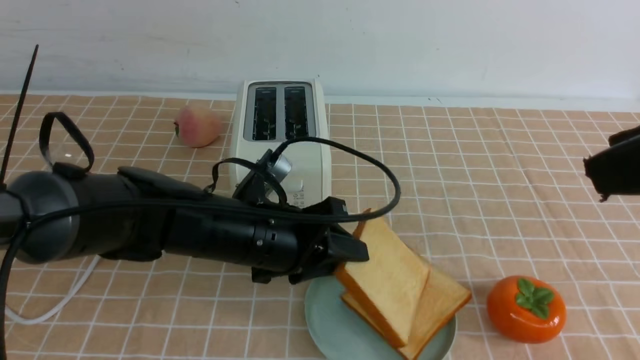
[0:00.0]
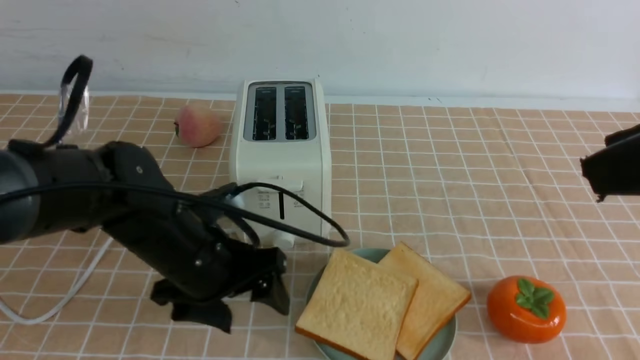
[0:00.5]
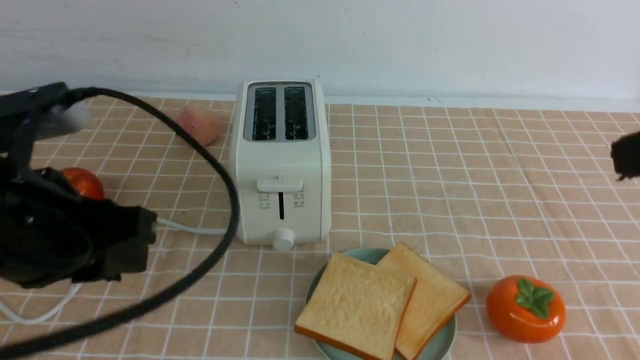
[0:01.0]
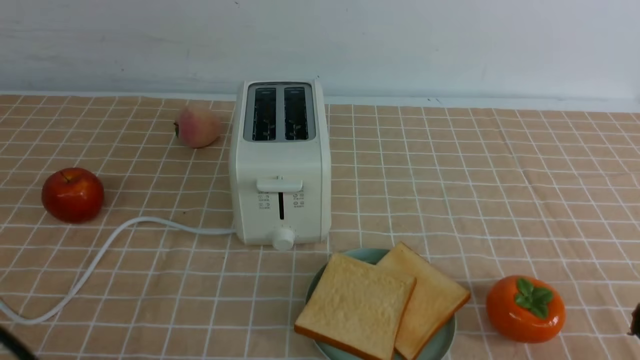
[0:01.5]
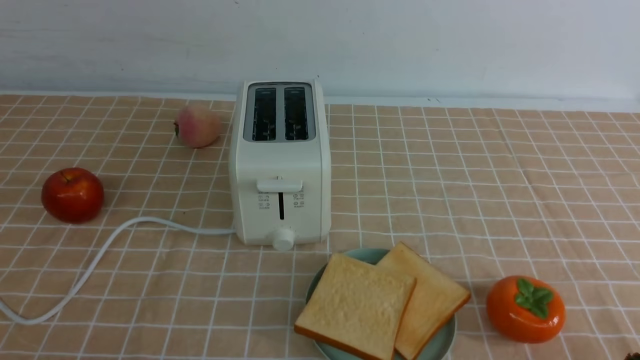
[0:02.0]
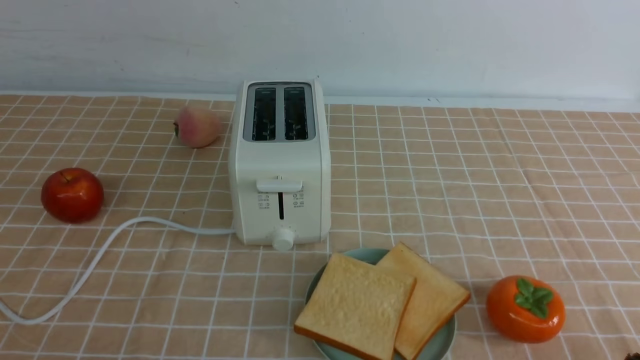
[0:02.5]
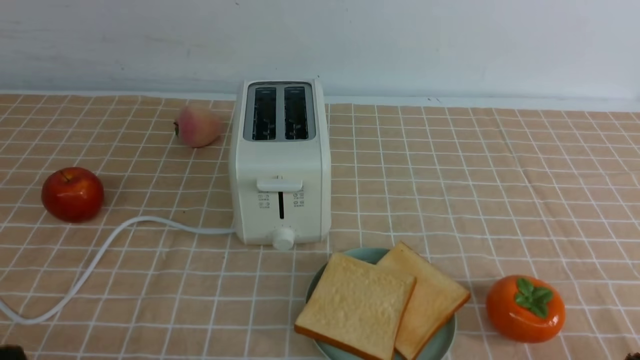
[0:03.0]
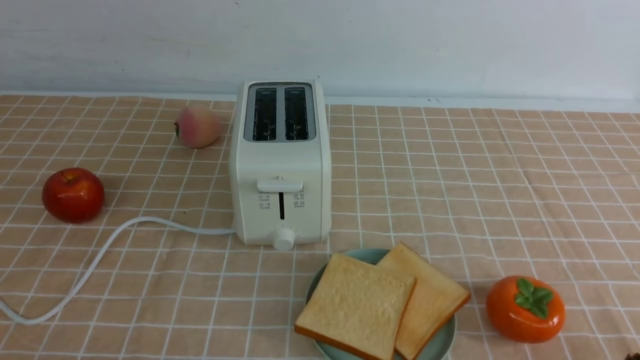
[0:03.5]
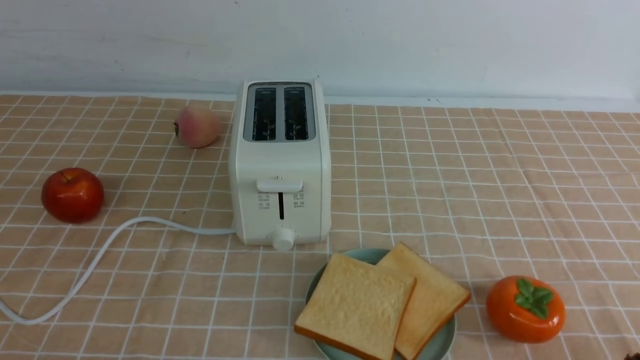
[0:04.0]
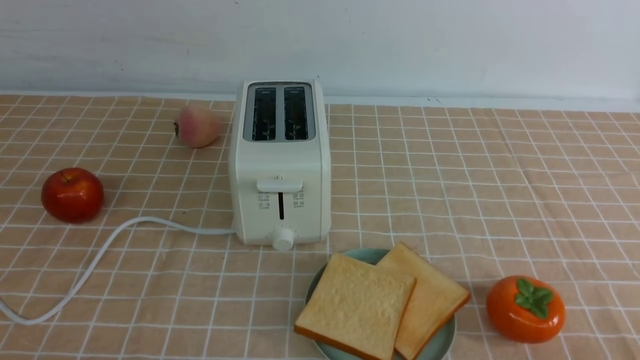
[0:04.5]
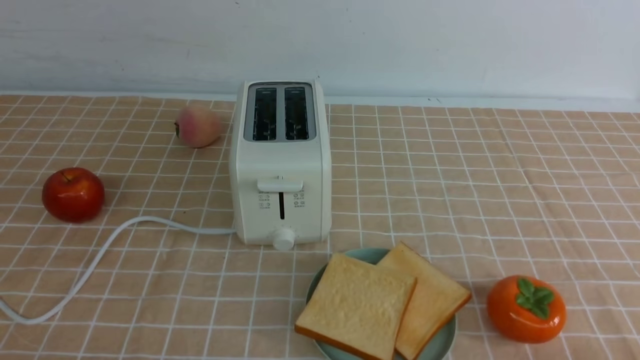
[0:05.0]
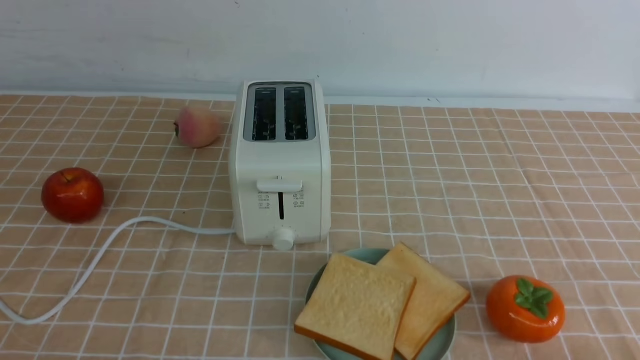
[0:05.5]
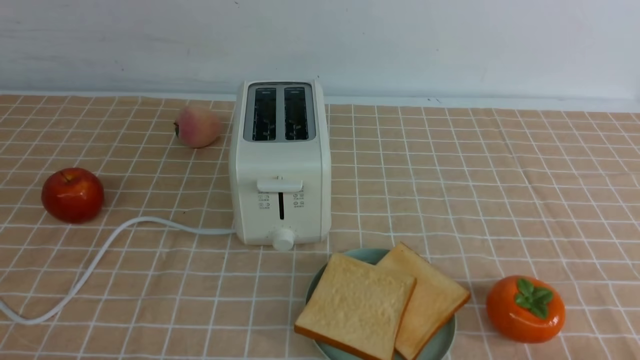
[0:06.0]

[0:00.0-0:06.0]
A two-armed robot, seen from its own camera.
Task of the whole recording: take toasted bread from bread machine on light coffee tablecloth place on plate.
0.0 to 2.0 s: The right gripper goes about 25 cm downward, and closes. The left gripper is displaced backward and to the left by roughly 30 cm, and closes its fingers.

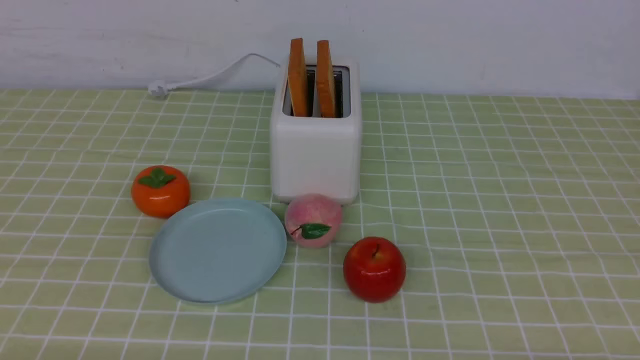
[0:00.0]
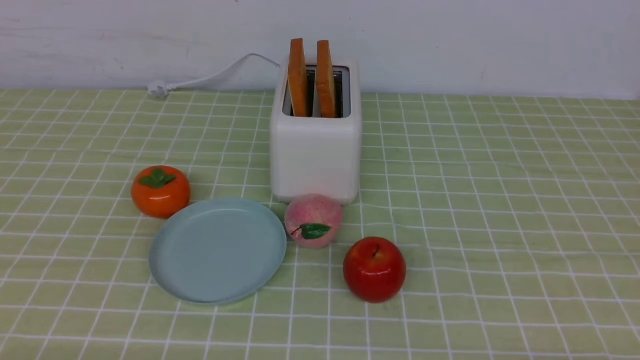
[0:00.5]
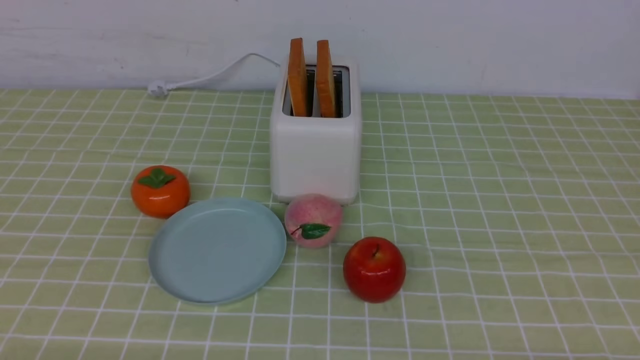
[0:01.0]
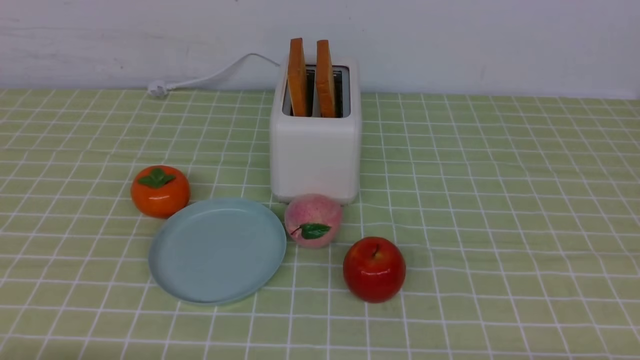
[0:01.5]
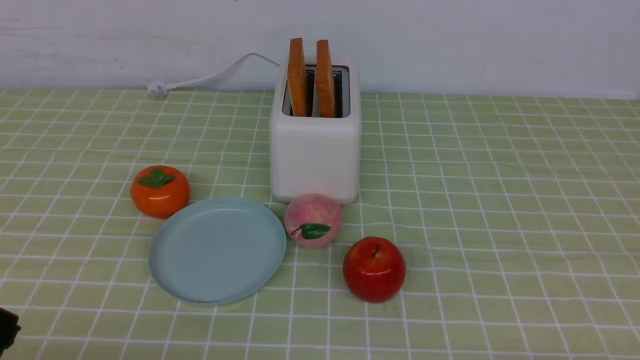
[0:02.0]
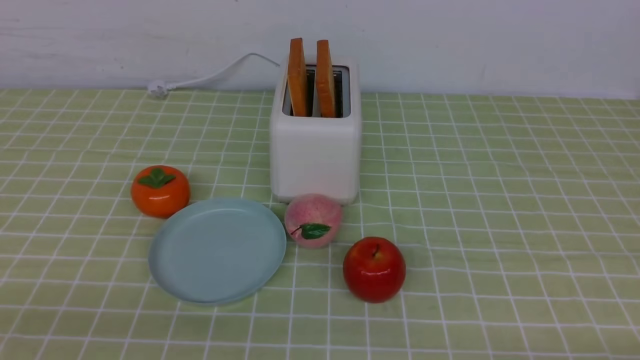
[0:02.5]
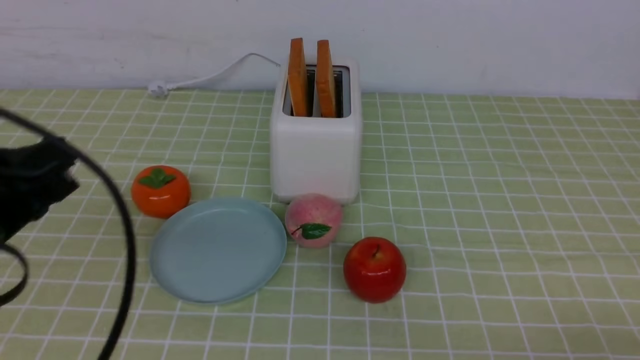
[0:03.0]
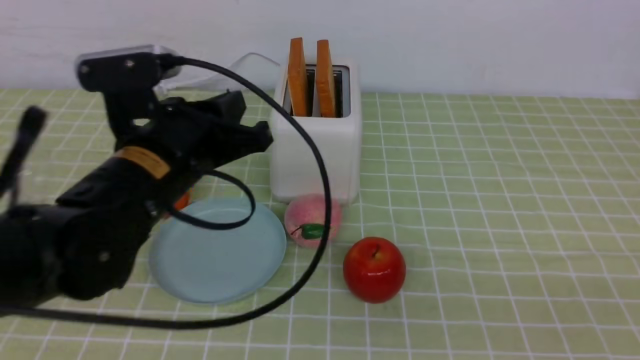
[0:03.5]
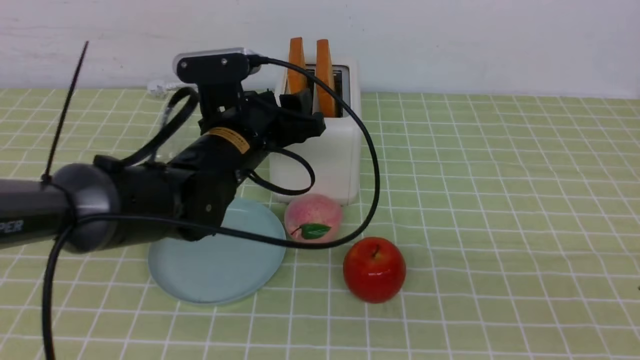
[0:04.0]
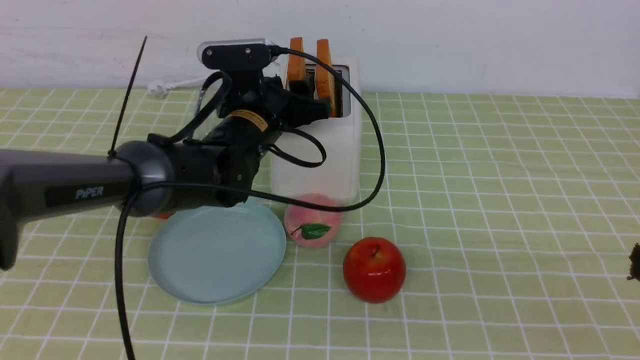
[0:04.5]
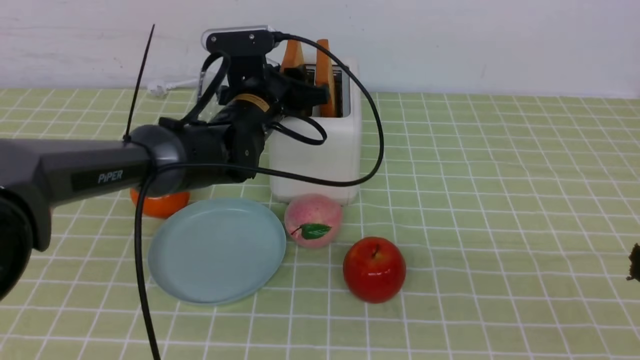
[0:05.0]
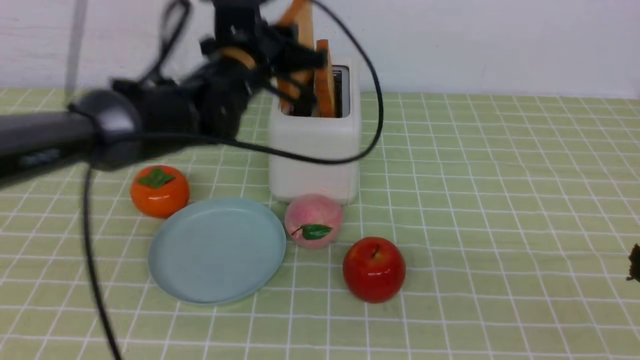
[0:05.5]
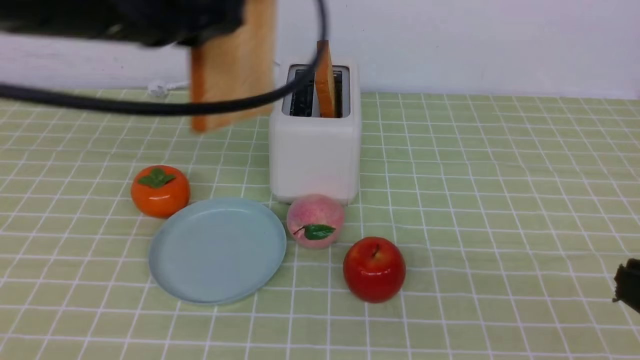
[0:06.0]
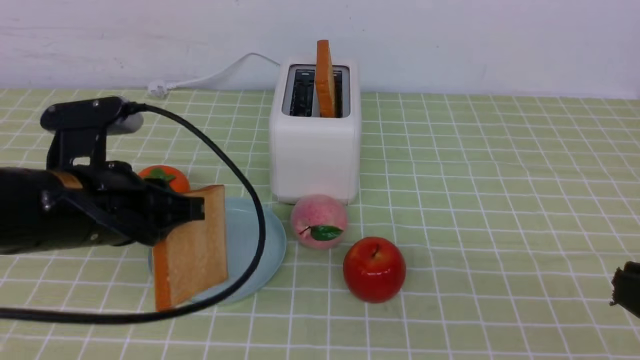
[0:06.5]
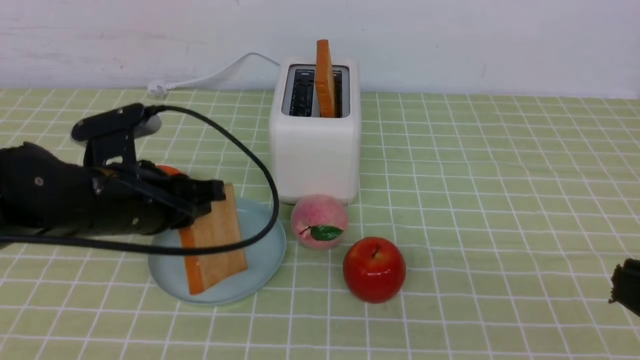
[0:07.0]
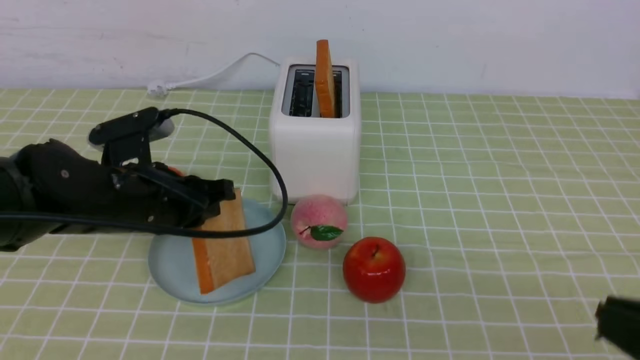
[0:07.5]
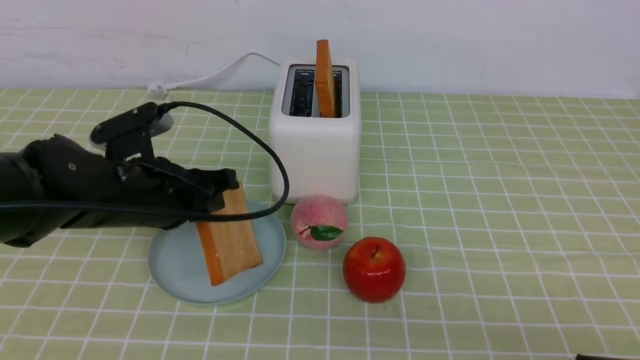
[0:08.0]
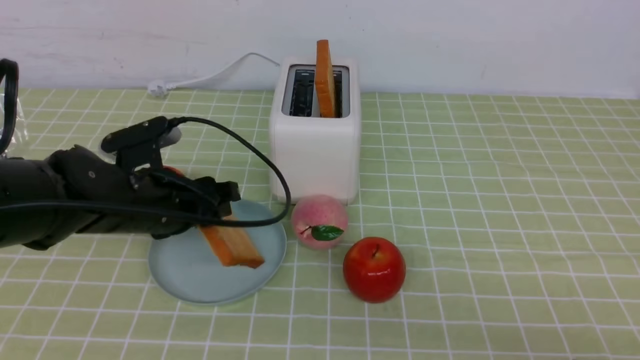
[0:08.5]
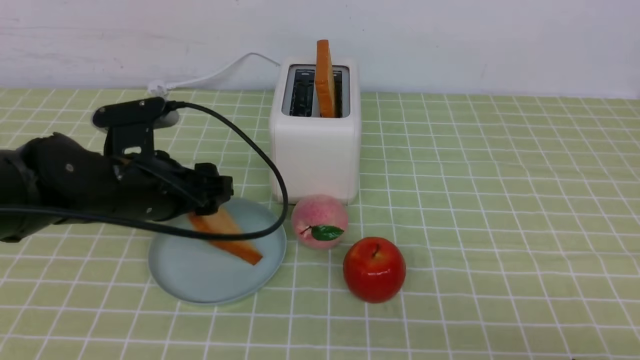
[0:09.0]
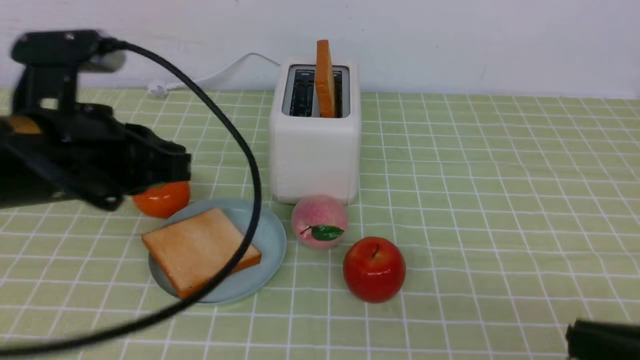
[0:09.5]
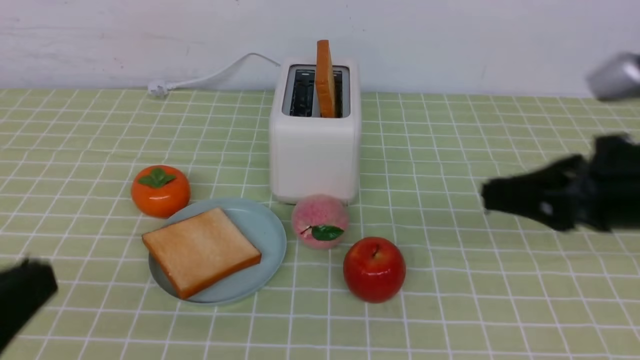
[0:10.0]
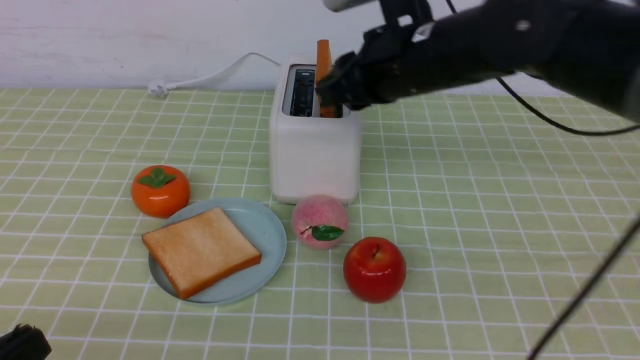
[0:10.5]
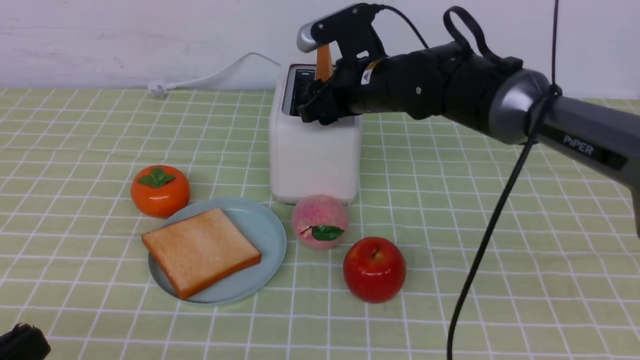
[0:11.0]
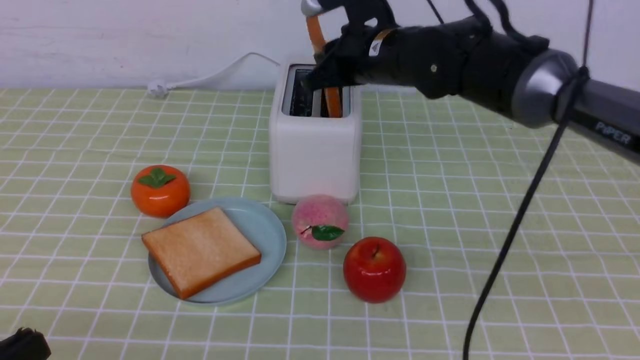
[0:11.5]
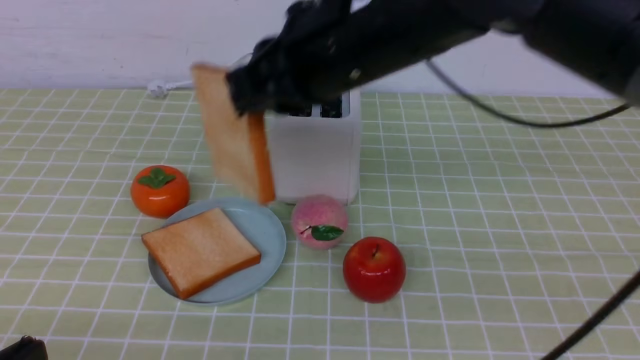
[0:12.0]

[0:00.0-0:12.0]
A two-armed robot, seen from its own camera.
Task of the whole recording: take toasted bread from bread machine on green coffee tablecloth place on plate.
Step, 0.0 to 5.5 s: use the left arm to take out a slice of bread.
Step, 6.0 to 9.0 s: use the left arm to put a slice of bread into the empty plate.
Step, 9.5 to 11.5 s: use the right arm to take out a slice of bread.
2.0 to 4.0 s: The left gripper shifts about 35 cm forward and to the right, and opens up. Meanwhile the right gripper moves upward, roughly 15 cm, and closes its fingers.
4.0 to 6.0 s: The left gripper moves upward, some 15 cm, and closes.
6.0 to 8.0 s: The right gripper is displaced downward by some 5 cm. Meanwhile the left gripper travels downward by some 20 cm.
8.0 to 10.0 s: The left gripper heads backward and upward, covering approximately 25 cm, and opens, then closes once more. The right gripper goes approximately 15 cm forward and upward.
10.0 to 12.0 s: The left gripper shifts about 10 cm downward, while the right gripper goes about 25 cm to the left and forward, and opens and closes again.

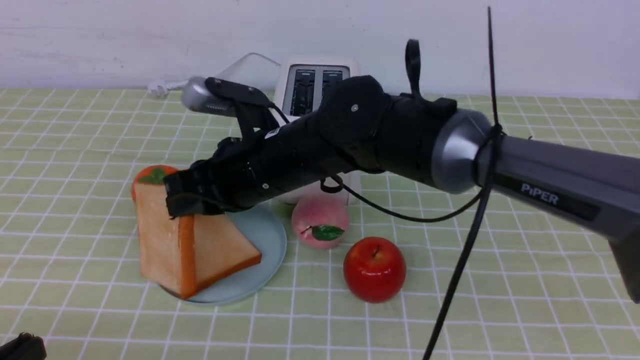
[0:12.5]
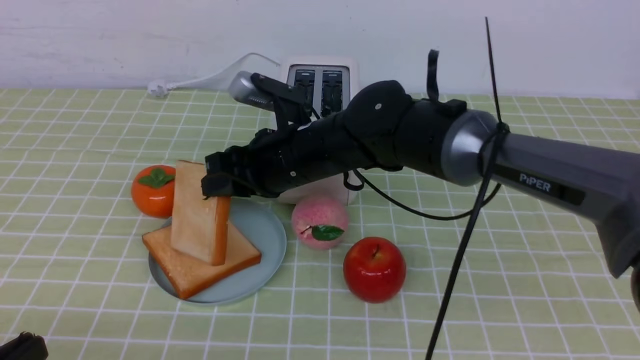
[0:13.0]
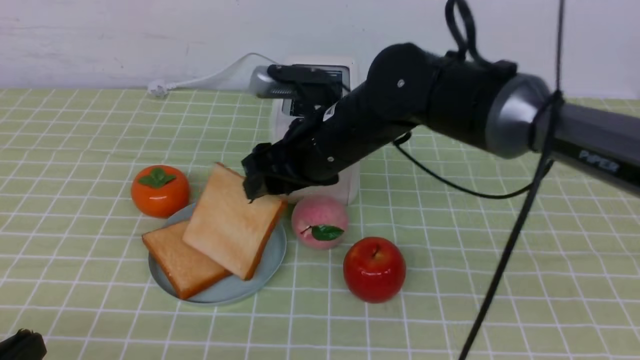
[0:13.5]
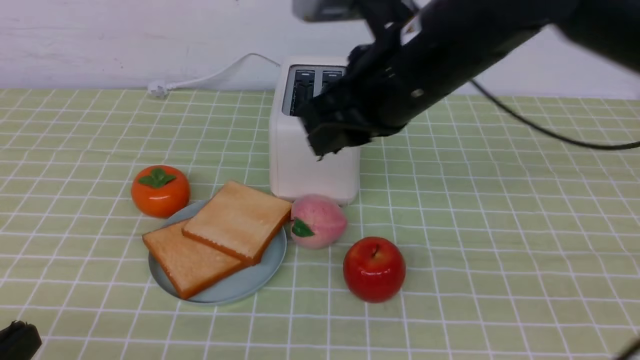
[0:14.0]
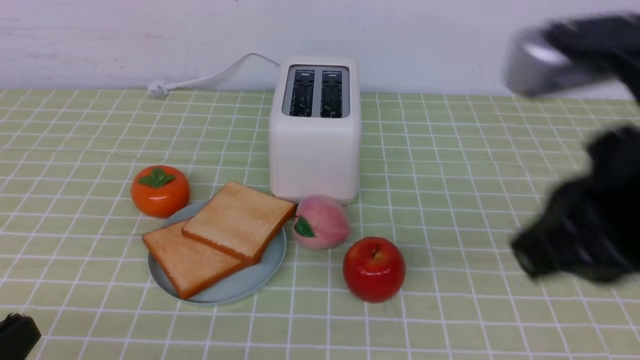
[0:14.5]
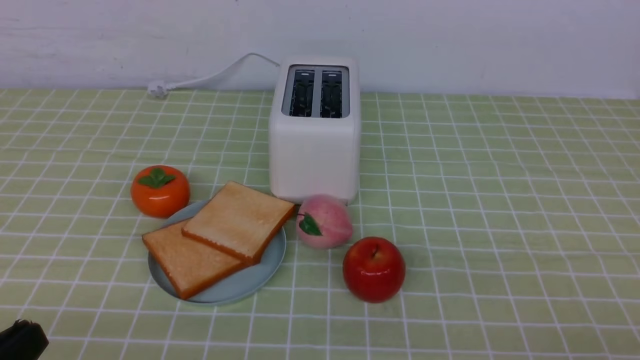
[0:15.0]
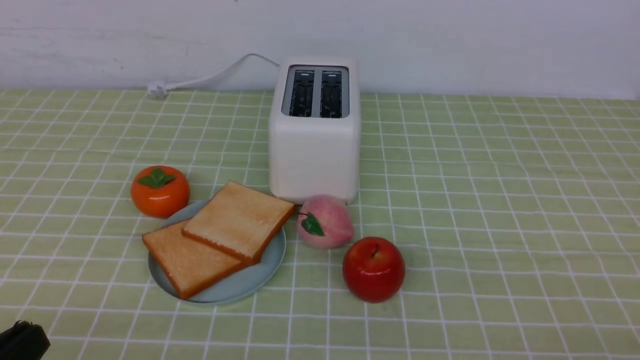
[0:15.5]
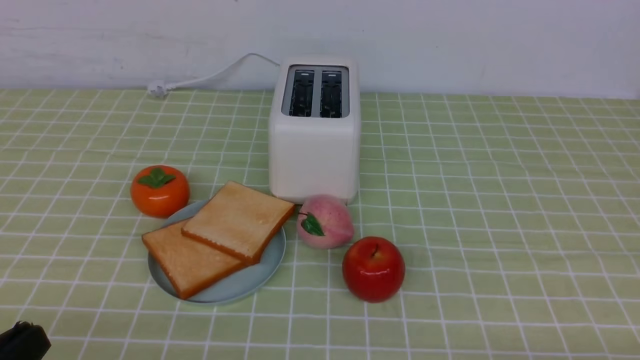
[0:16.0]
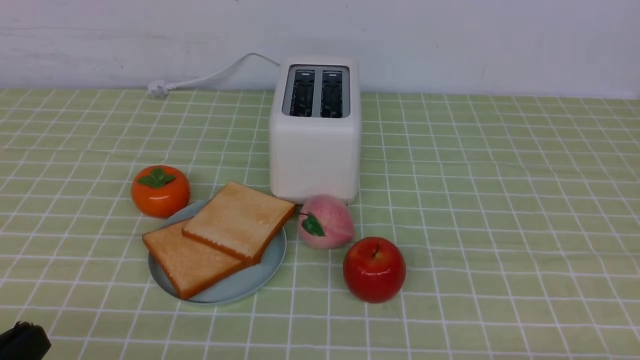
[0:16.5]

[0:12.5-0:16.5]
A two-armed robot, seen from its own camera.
Task of the whole recording: take toasted bread from bread machine on green coffee tablecloth place on plate.
Step, 12.5 to 13.5 s: use the right arm to put a slice of bread into the plate.
12.5 to 14.5 s: The right gripper heads to the right, backward and upward, covering approximately 30 cm, and opens, then closes again.
14.5 to 16.5 s: The right gripper heads downward, to the right and backward, covering approximately 30 cm.
